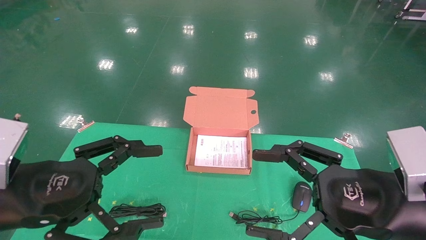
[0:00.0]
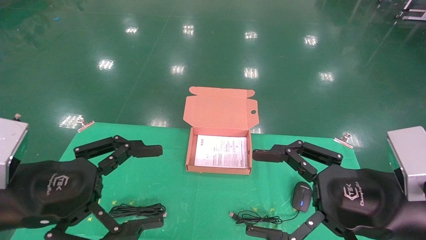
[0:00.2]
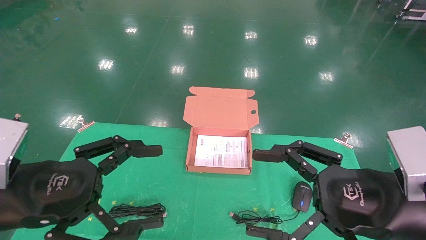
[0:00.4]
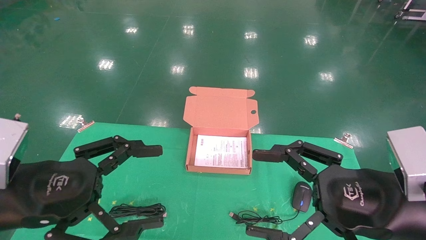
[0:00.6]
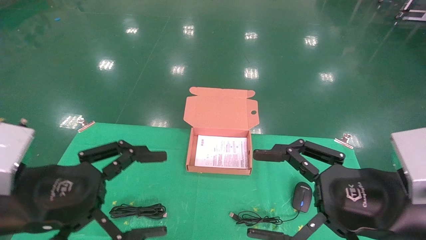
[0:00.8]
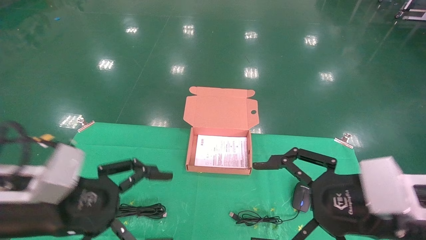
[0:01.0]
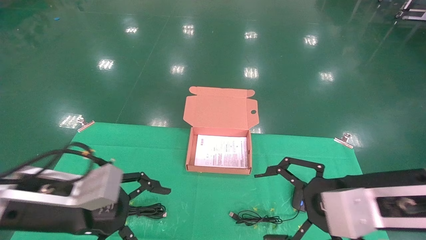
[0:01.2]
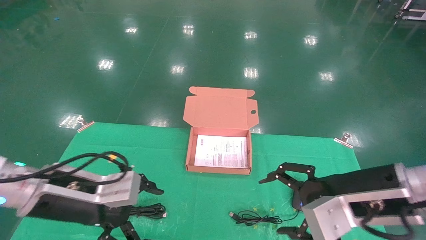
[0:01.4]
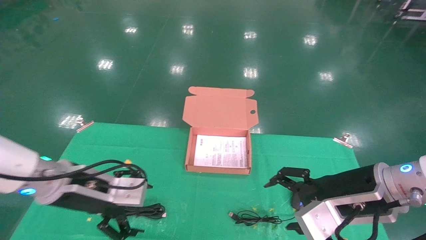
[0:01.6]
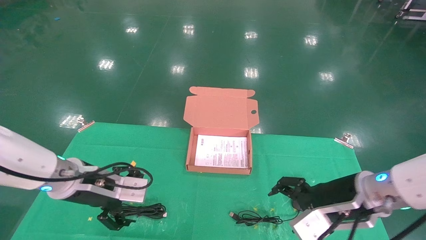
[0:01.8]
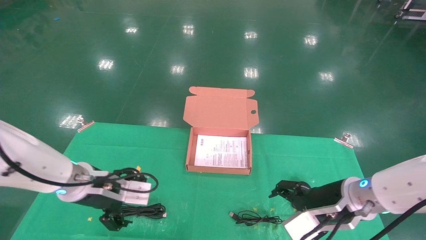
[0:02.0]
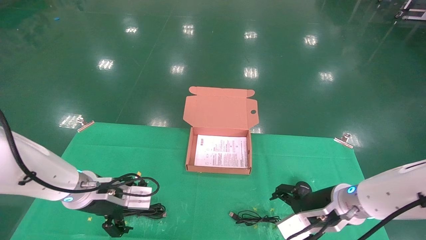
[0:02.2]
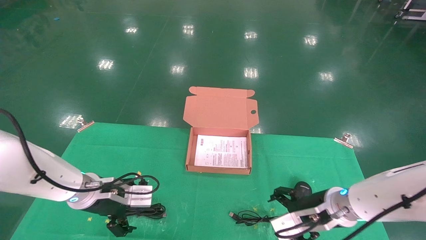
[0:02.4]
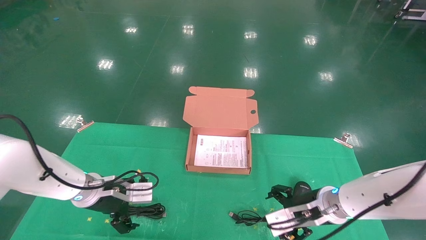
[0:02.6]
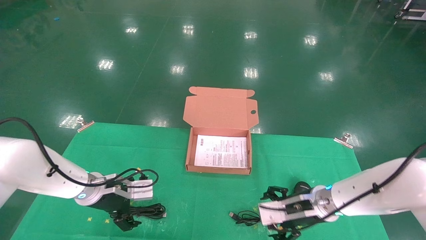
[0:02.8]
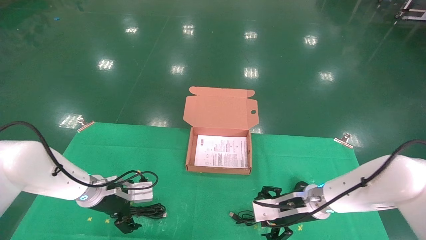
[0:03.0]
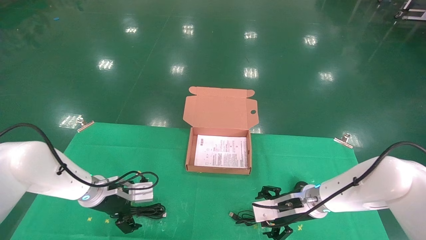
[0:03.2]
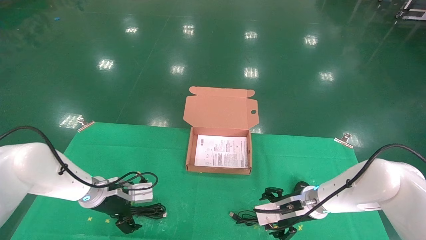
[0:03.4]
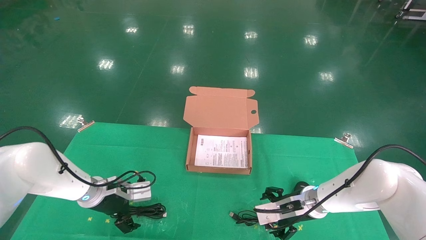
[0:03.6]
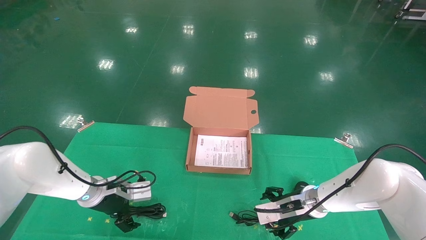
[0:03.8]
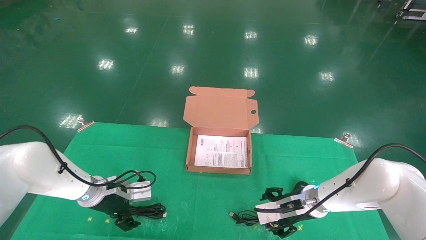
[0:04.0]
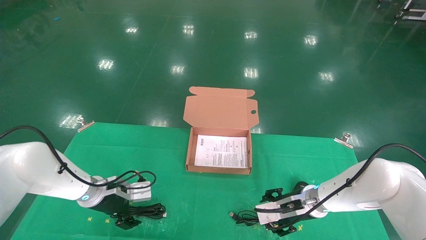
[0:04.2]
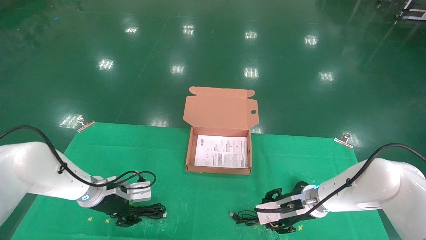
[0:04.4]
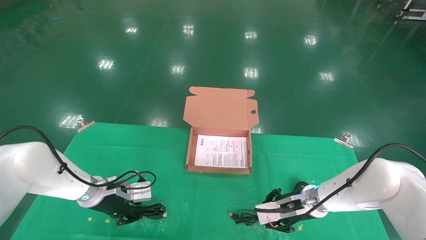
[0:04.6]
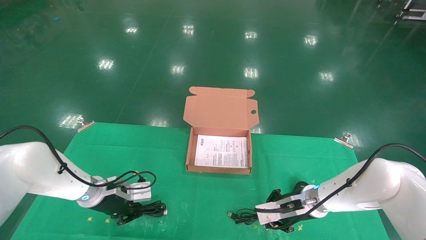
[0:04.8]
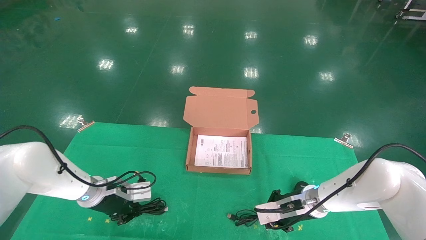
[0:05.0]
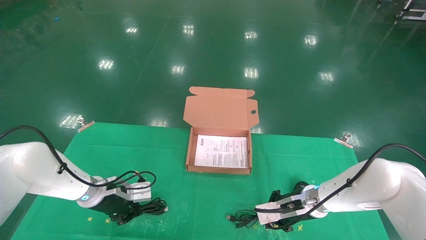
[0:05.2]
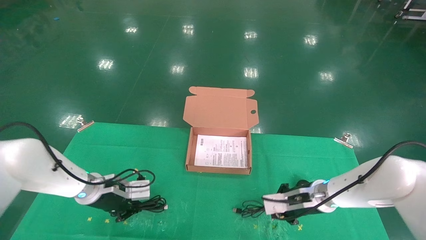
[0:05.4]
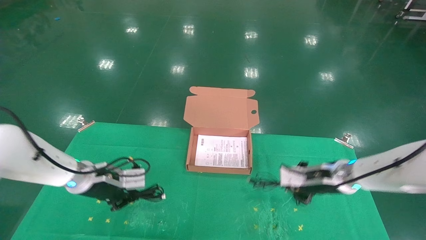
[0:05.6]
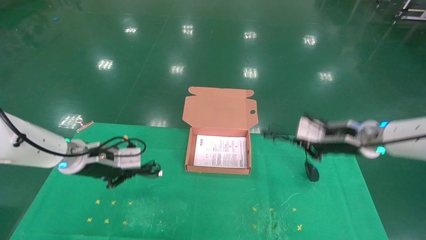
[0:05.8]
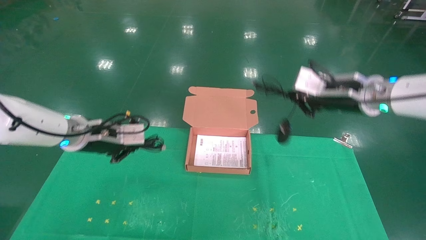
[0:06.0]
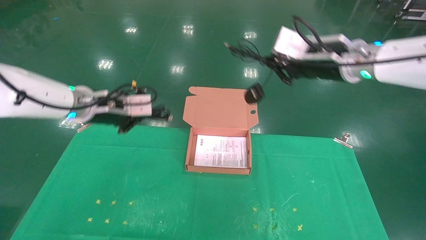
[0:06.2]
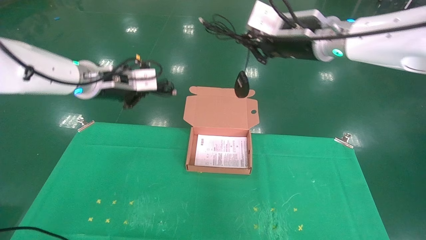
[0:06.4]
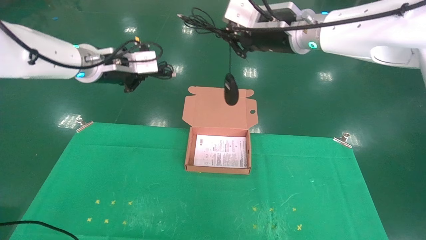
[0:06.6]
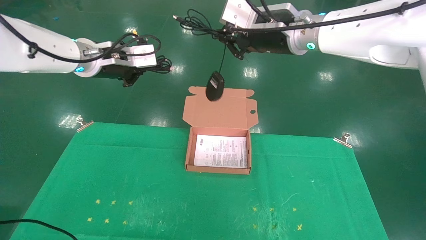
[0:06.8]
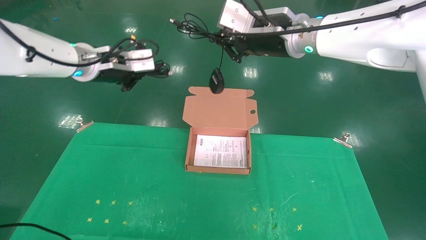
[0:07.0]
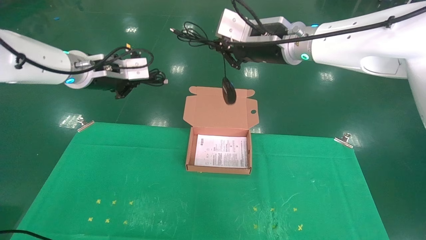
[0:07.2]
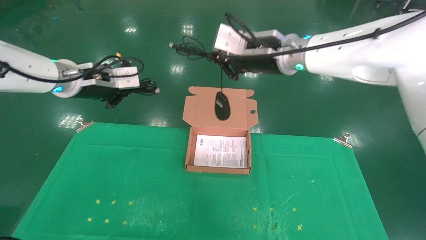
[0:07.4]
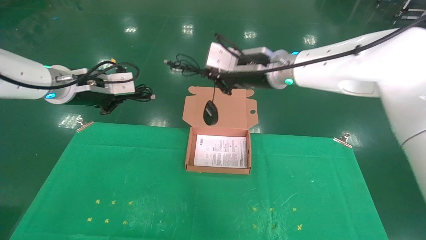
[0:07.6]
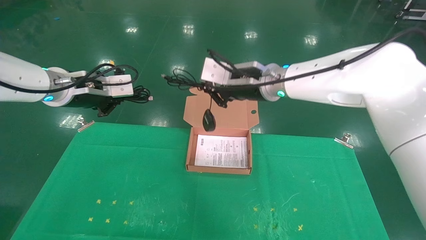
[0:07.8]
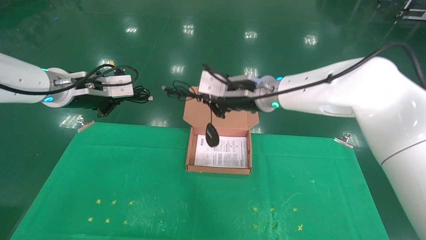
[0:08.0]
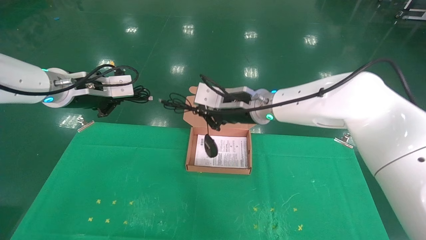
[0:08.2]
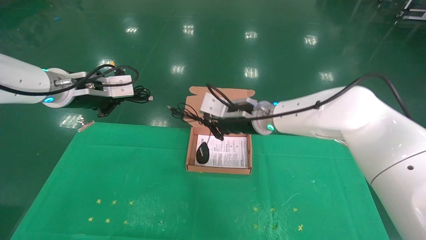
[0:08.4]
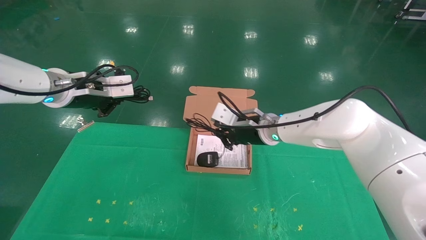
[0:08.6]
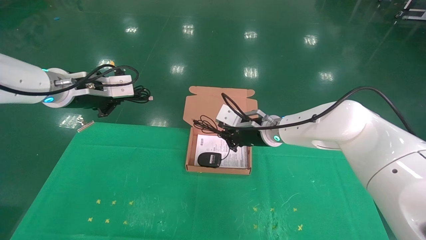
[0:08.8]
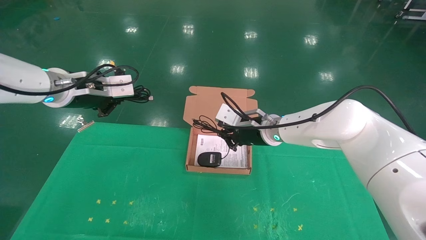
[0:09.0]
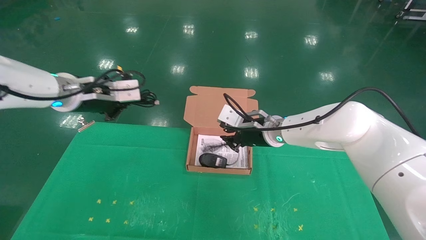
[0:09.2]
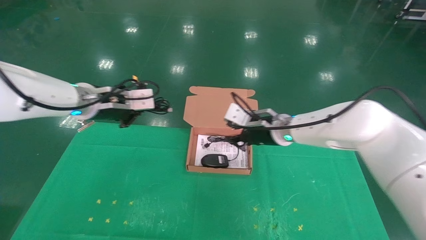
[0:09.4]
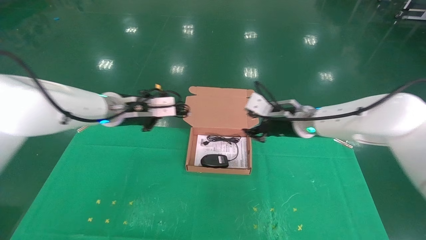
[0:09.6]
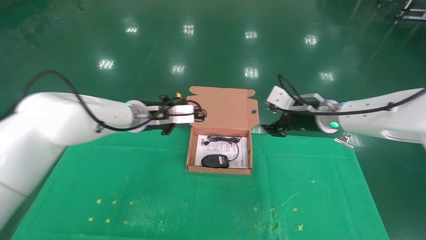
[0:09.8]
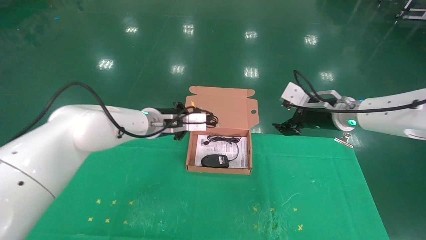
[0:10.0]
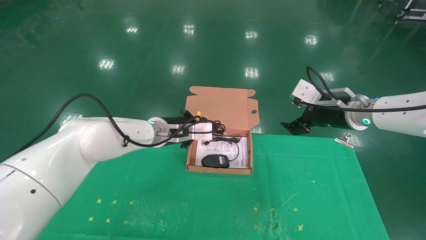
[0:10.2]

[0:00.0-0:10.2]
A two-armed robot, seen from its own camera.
Task of the whole recording: grasp data cable left put into box grasp mouse right put into box.
Step, 0:01.0 to 0:05.0: Grab and pick up both the mouse and power cord from the accessory packaging area at the same time.
0:00.0 to 0:01.4: Both grippers move forward, roughly 5 cm.
0:01.4 to 0:03.0: Both grippers travel together forward and downward, some 20 cm.
0:03.0 to 0:04.4: The left gripper closes.
0:04.4 to 0:05.8: The left gripper heads upward, covering about 10 cm, and closes its fingers, while the right gripper travels upward by roughly 15 cm, and closes.
0:05.8 to 0:07.2: The left gripper travels upward by roughly 20 cm. Meanwhile the right gripper shifts approximately 25 cm upward and to the left.
0:07.2 to 0:08.8: The right gripper is displaced downward by approximately 20 cm.
0:08.8 to 0:10.2: The right gripper moves to the right, some 15 cm, and opens. The left gripper heads to the right, downward and forward, covering approximately 20 cm.

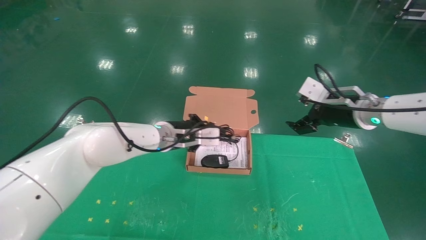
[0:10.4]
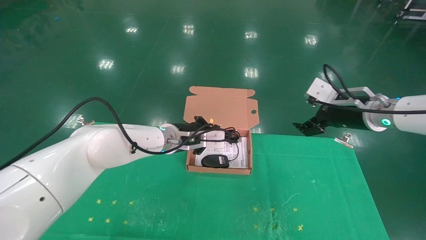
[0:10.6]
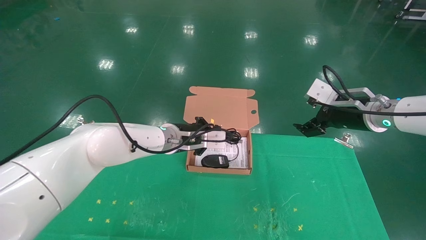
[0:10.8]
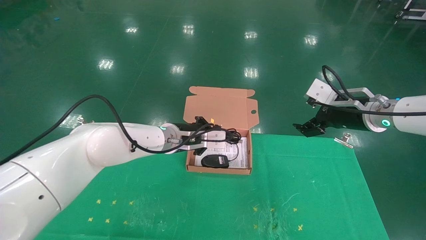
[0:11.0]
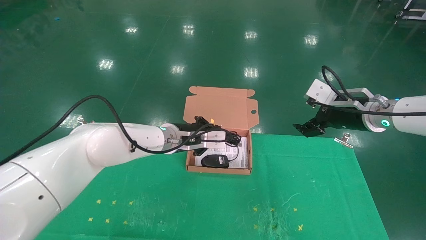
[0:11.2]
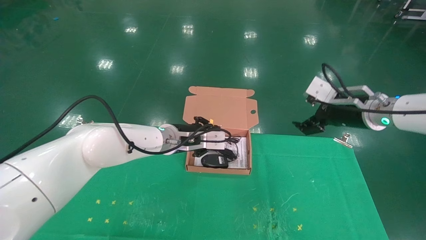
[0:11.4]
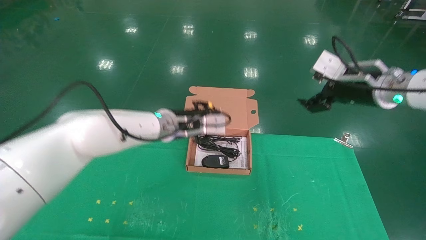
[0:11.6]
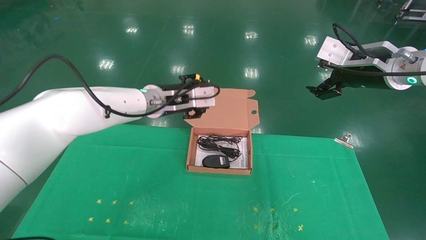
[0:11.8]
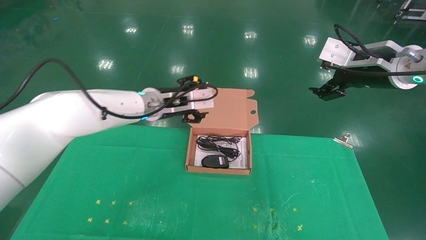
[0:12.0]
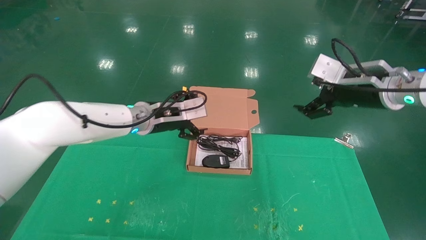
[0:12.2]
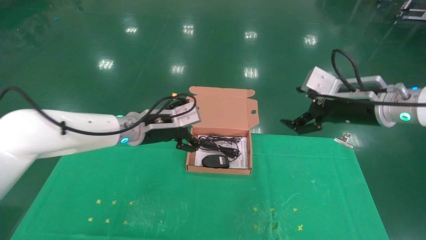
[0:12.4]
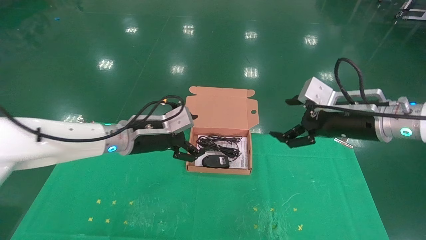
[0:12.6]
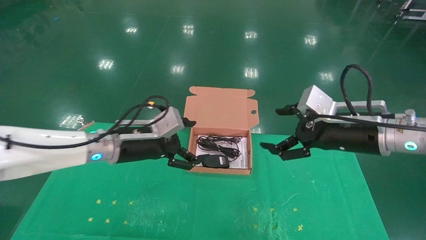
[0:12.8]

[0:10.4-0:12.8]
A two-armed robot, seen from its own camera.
Task of the whole recording: grasp data cable left put into box grasp mouse right put into box.
0:10.4 to 0:11.6: The right gripper goes some 5 cm upward.
0:11.6 to 0:12.8: The left gripper heads to the left and backward, covering roughly 10 cm, and opens. The right gripper goes approximately 10 cm downward and backward.

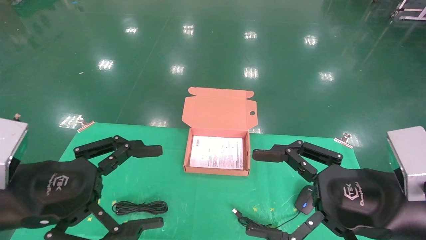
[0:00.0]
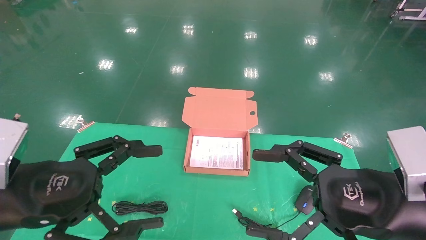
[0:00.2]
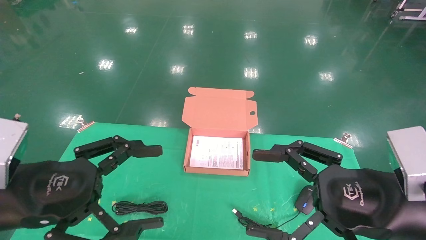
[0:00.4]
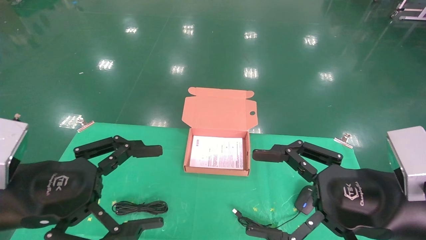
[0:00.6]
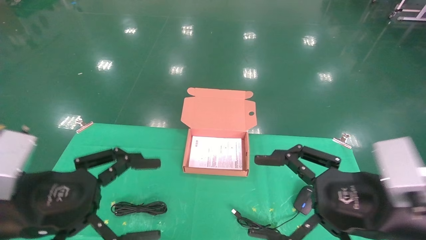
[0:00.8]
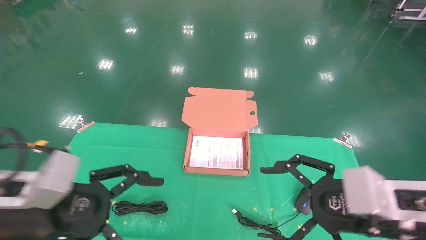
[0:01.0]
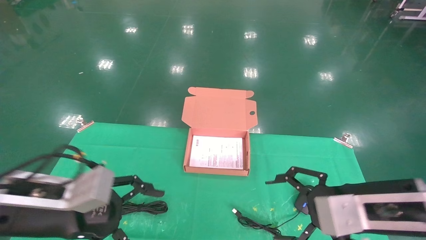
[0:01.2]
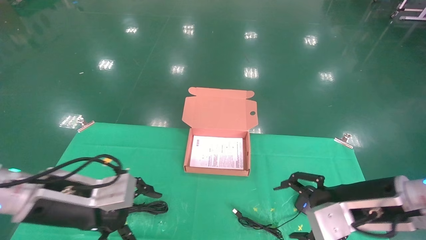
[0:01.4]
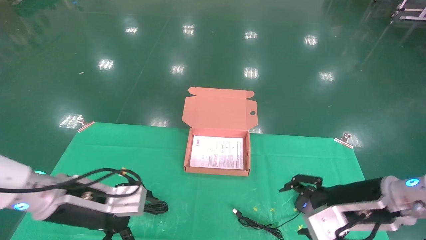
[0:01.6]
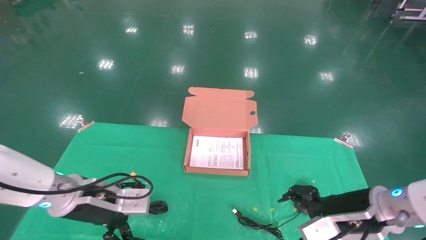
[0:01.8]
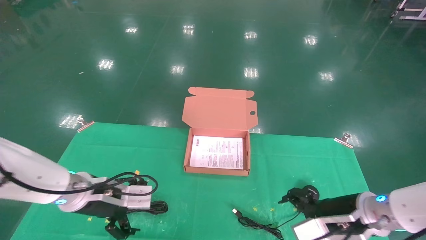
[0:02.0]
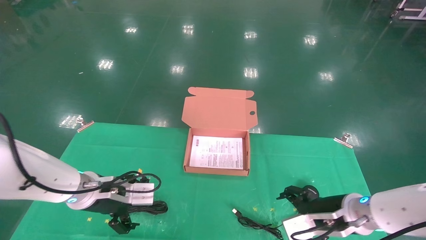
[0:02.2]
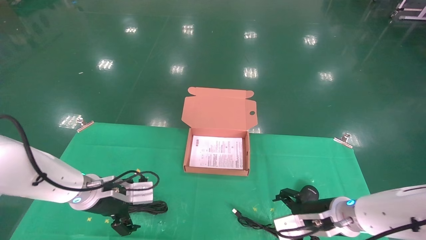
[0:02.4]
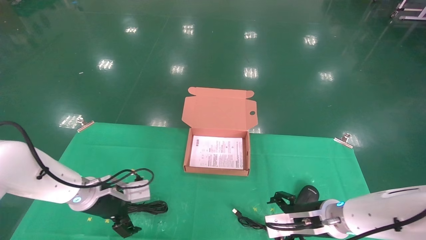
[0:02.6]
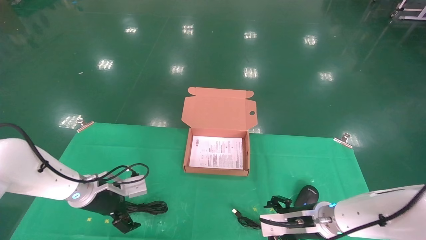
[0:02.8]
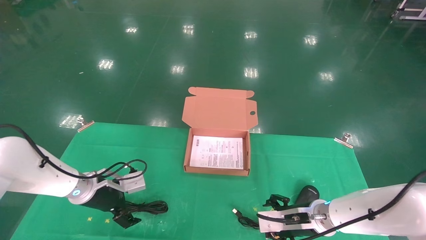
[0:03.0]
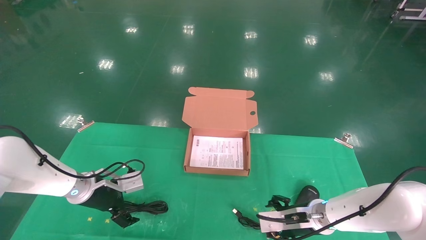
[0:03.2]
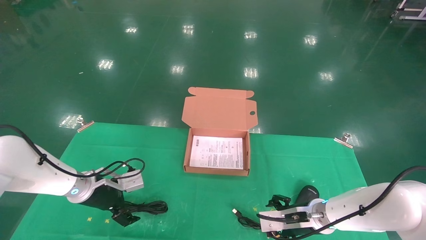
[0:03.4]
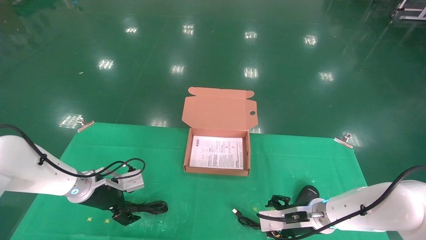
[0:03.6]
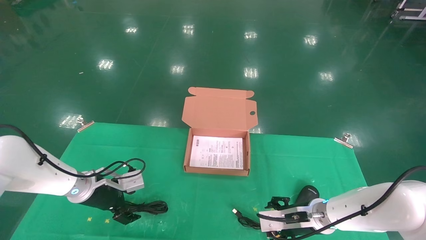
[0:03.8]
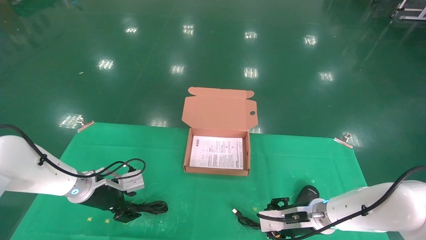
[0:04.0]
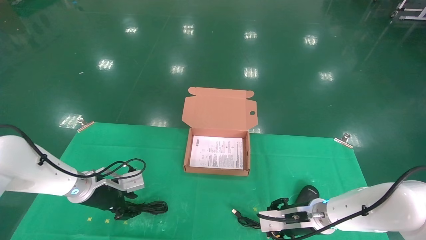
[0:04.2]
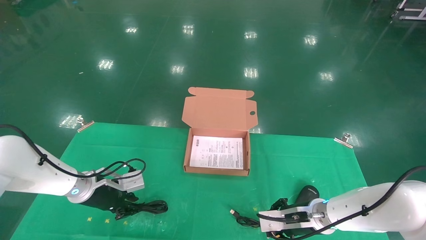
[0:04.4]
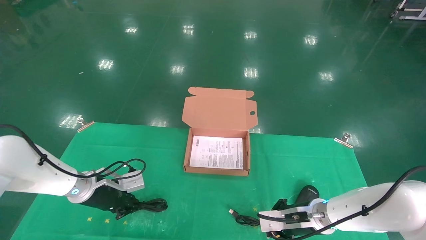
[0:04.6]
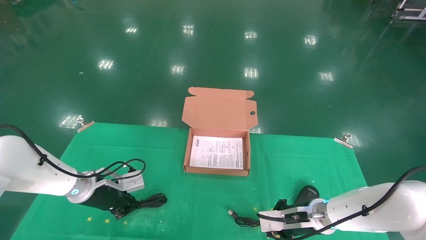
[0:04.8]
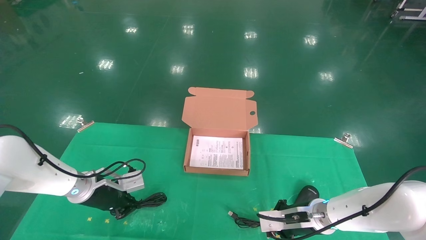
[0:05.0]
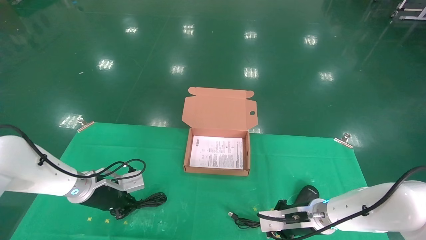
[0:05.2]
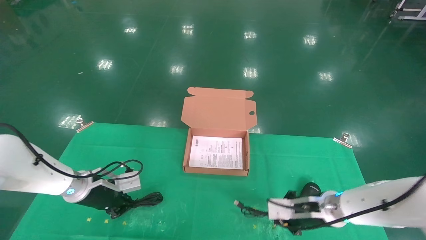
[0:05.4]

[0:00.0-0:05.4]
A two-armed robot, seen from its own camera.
Task of the whole recording: grasp data cable left put into box grasp mouse right put into box.
0:00.0 to 0:01.4: The right gripper moves forward, about 10 cm, while the left gripper shifts roughly 10 cm forward and downward.
0:01.4 to 0:02.8: The left gripper goes roughly 15 cm forward and downward. The right gripper moves downward and forward, some 15 cm.
0:02.8 to 0:04.0: The grippers move only a little.
0:04.0 to 0:05.4: The right gripper closes its fingers; the left gripper closes up.
